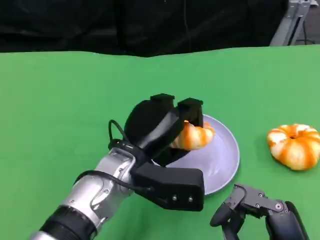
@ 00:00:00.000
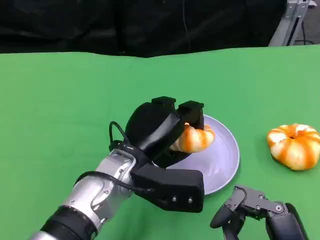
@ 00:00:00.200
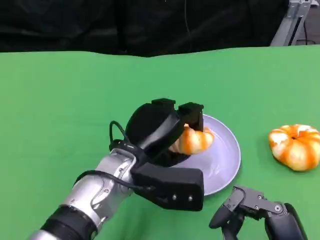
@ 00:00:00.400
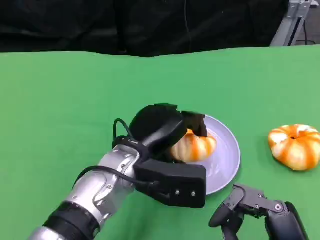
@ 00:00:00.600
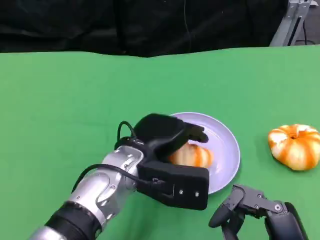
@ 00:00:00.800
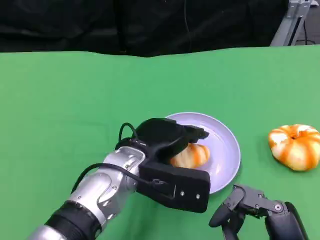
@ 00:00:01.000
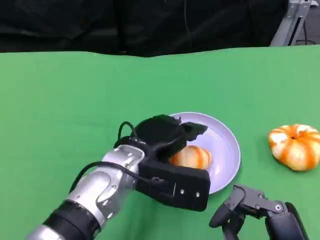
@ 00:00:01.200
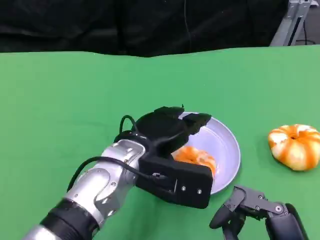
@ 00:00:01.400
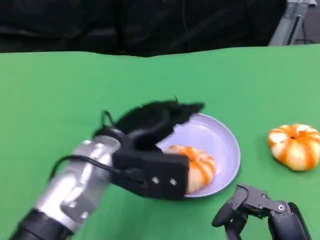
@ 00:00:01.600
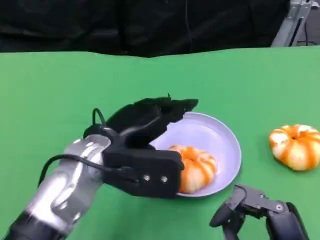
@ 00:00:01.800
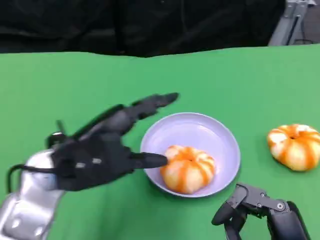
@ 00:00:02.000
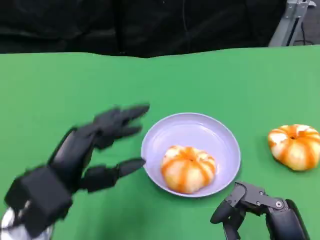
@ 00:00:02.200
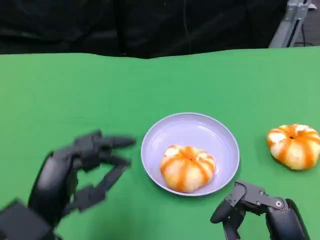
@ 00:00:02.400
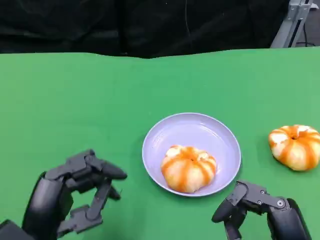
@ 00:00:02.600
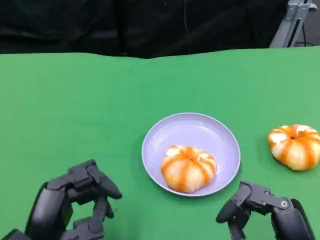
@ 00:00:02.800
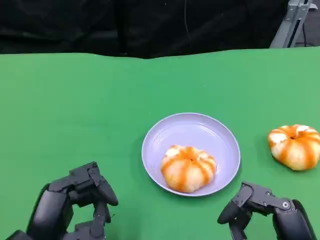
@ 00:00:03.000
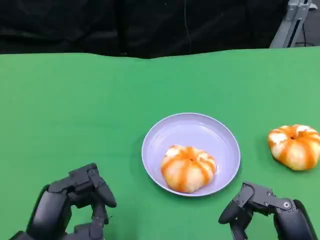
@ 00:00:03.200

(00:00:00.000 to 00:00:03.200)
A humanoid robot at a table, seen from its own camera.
Task of the whole recording: Grasp the bread from the table and place it into the plate.
00:00:00.000 - 00:00:01.600: The left hand changes place by some 5 cm.
00:00:01.600 - 00:00:03.200: The left hand goes roughly 15 cm backward, to the left and downward.

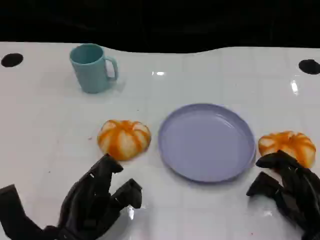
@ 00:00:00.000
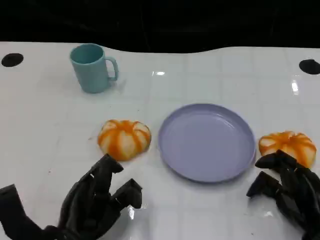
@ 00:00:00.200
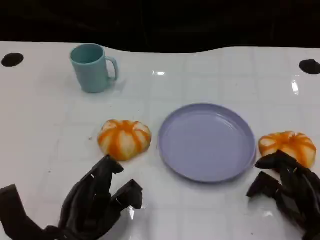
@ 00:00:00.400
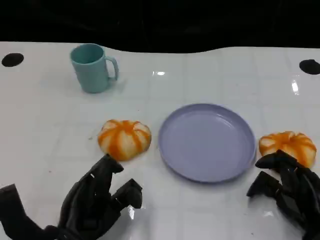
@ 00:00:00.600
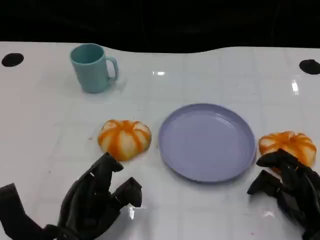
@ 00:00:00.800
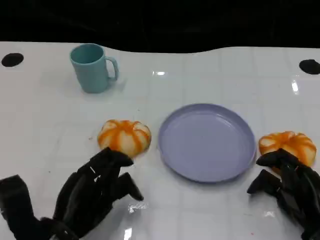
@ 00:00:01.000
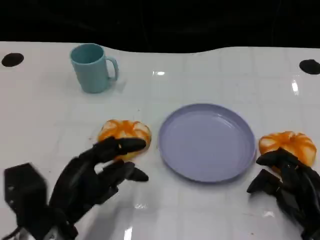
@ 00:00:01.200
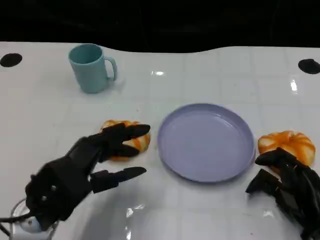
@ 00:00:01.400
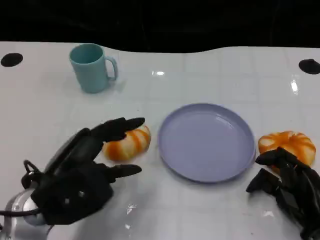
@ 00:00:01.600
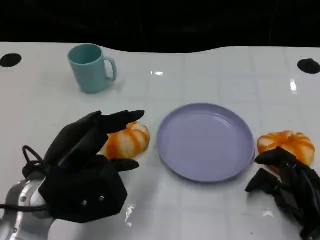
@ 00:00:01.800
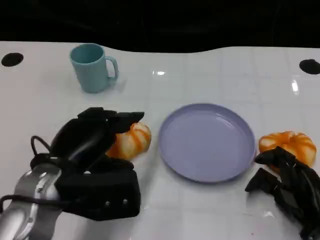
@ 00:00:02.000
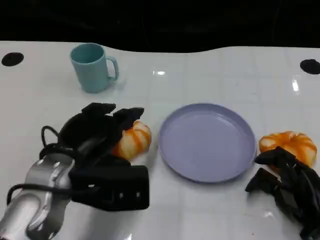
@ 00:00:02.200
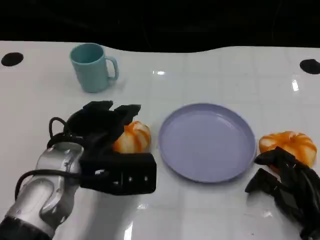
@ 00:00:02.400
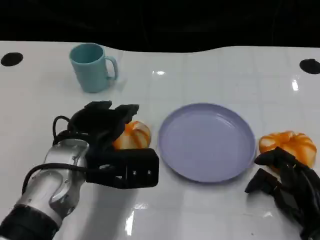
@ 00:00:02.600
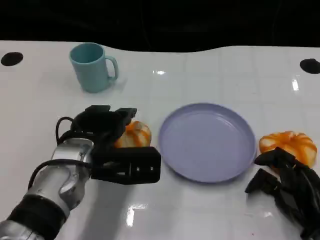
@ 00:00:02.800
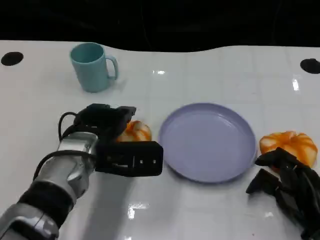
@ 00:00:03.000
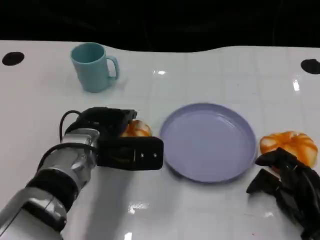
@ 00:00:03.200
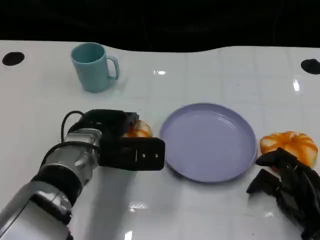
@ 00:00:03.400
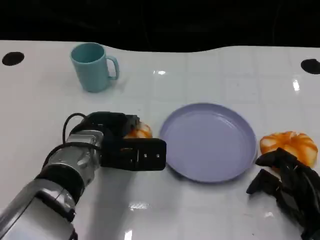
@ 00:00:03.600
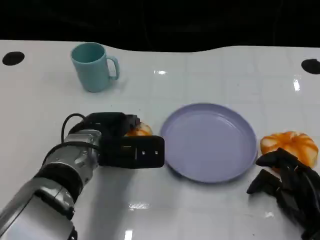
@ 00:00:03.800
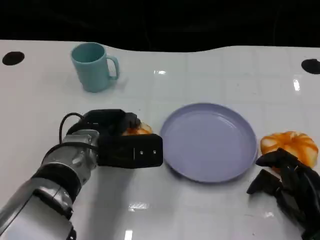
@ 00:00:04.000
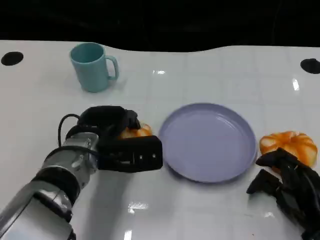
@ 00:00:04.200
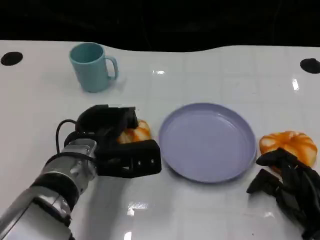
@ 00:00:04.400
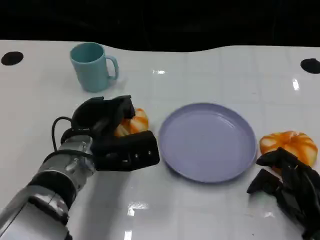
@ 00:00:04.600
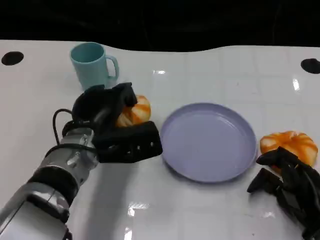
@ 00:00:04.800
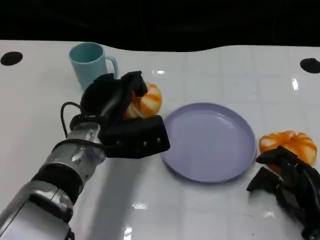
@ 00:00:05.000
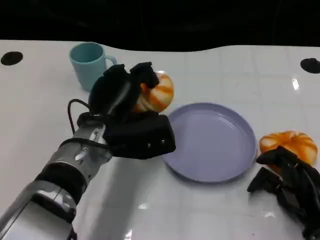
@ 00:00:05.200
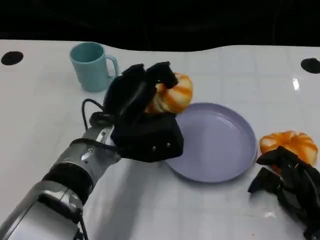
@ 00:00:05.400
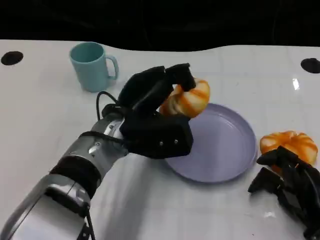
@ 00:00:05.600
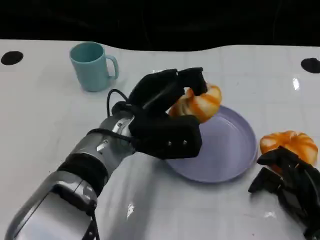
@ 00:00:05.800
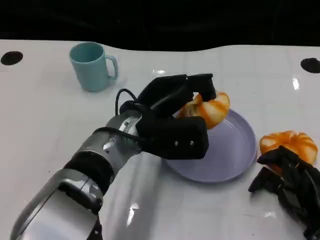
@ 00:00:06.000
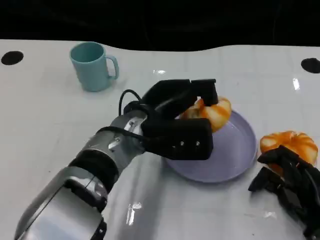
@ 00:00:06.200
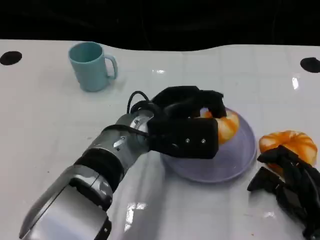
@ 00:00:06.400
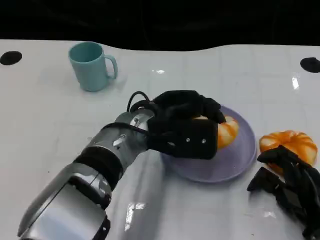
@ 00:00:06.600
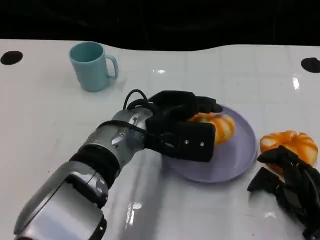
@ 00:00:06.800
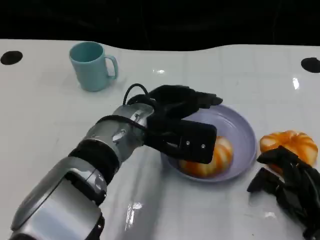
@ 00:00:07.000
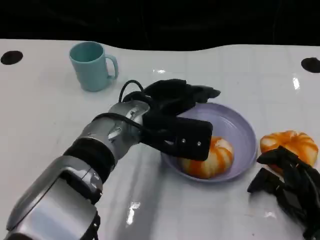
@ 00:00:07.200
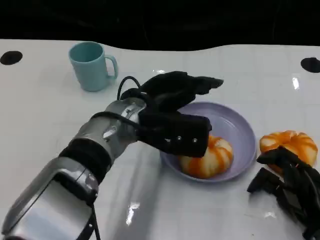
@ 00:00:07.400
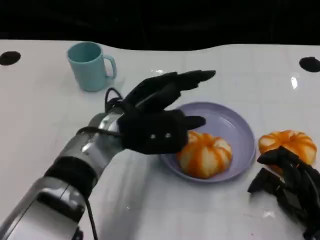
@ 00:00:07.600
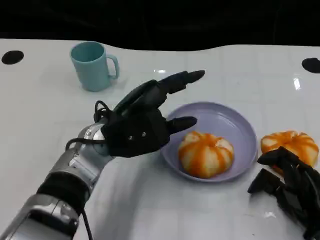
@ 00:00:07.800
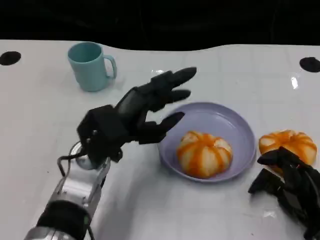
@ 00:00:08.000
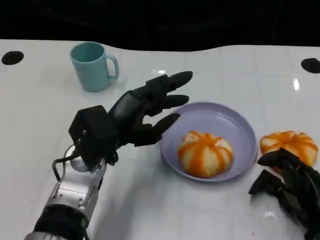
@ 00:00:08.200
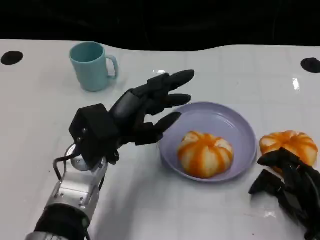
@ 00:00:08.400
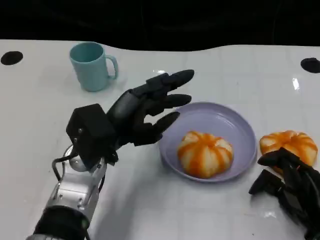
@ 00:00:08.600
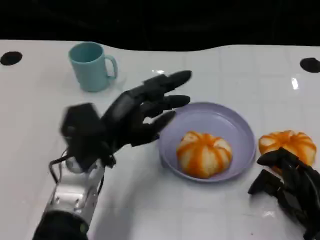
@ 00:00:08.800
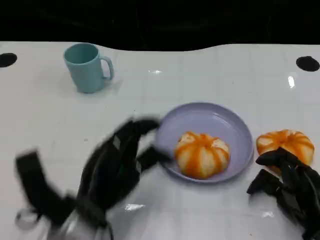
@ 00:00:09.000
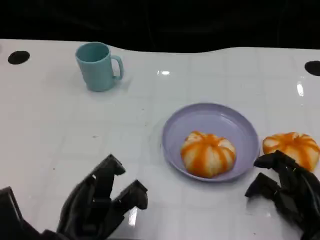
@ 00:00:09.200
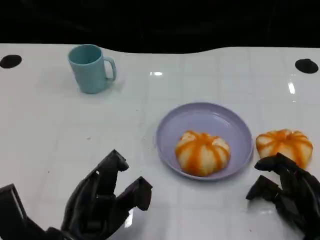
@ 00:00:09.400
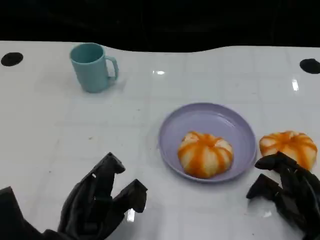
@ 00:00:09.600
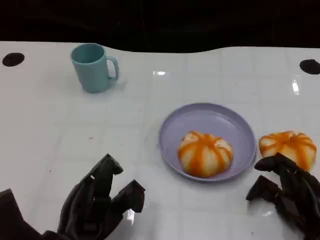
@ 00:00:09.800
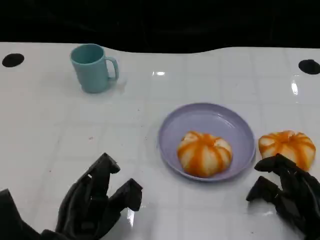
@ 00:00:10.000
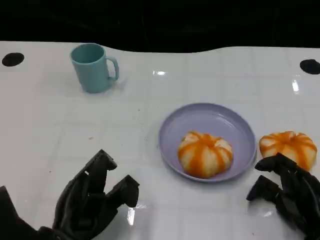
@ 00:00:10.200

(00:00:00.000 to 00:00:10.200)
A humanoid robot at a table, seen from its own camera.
Task of the whole recording: Grasp the bread from the table and place it into the plate.
00:00:00.000 - 00:00:01.400: The left hand goes approximately 5 cm upward.
00:00:01.400 - 00:00:03.000: The left hand heads forward and to the right, covering about 10 cm.
00:00:03.000 - 00:00:04.400: The hands make only small movements.
00:00:04.400 - 00:00:05.800: The left hand heads to the right and upward, covering approximately 10 cm.
00:00:07.200 - 00:00:08.800: The left hand heads to the left, covering about 10 cm.
00:00:08.800 - 00:00:10.200: The left hand travels backward and downward by some 10 cm.

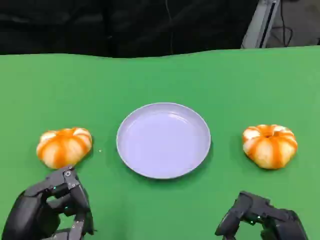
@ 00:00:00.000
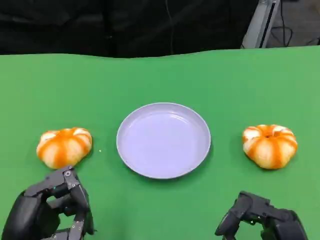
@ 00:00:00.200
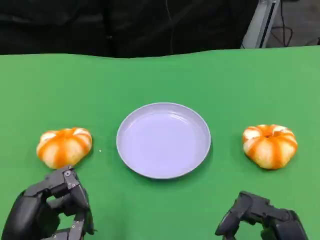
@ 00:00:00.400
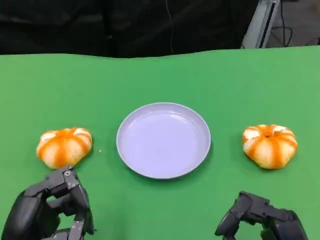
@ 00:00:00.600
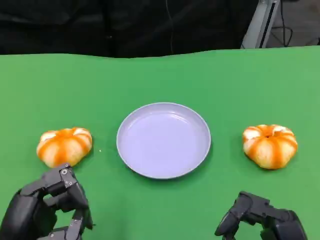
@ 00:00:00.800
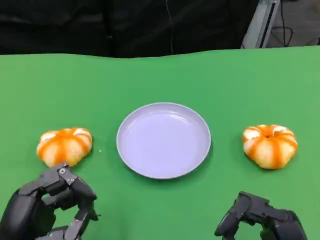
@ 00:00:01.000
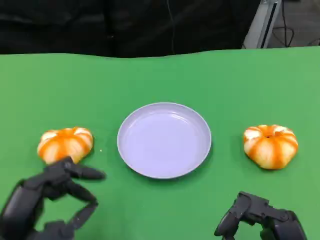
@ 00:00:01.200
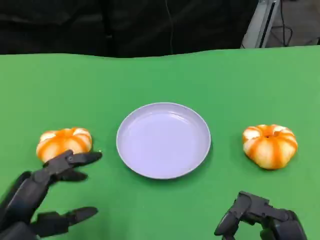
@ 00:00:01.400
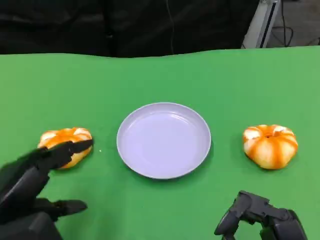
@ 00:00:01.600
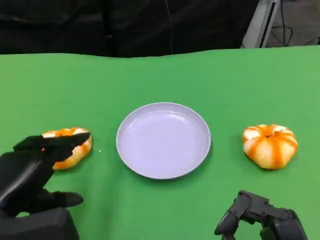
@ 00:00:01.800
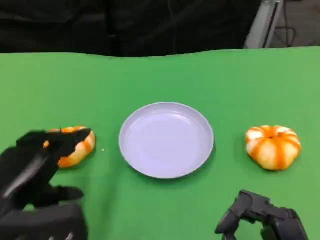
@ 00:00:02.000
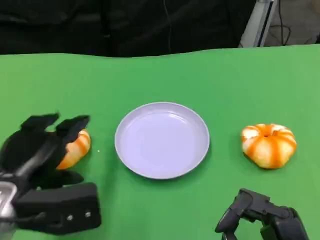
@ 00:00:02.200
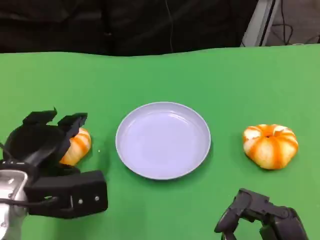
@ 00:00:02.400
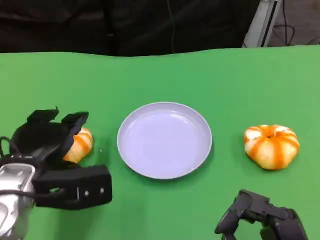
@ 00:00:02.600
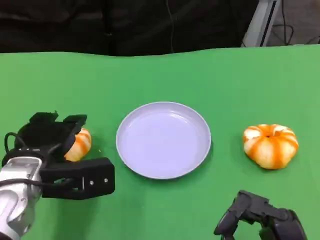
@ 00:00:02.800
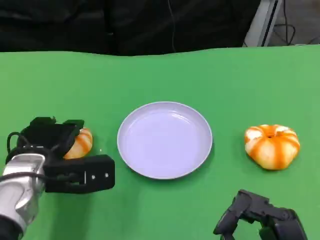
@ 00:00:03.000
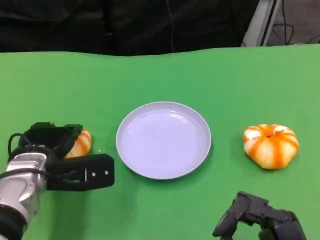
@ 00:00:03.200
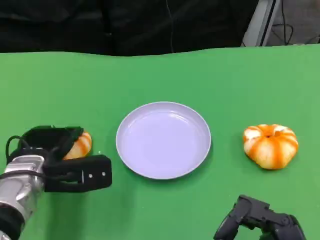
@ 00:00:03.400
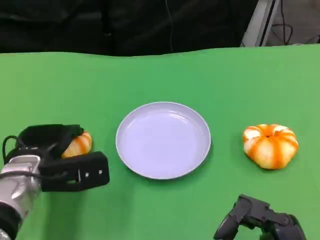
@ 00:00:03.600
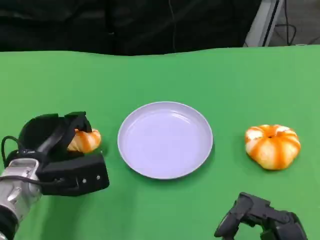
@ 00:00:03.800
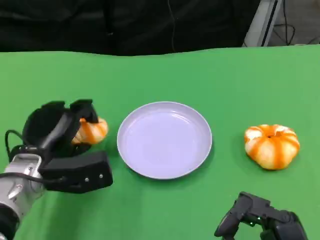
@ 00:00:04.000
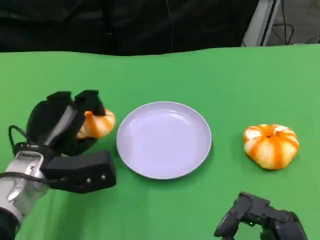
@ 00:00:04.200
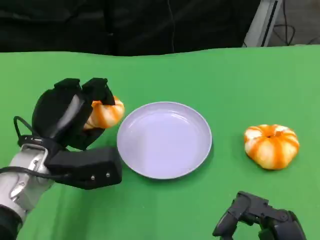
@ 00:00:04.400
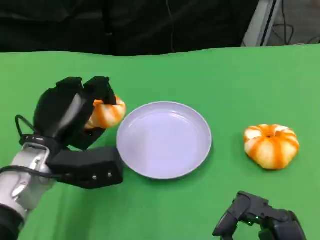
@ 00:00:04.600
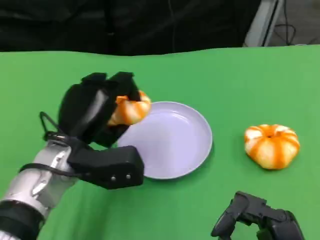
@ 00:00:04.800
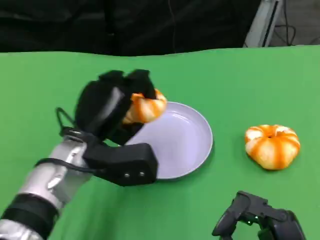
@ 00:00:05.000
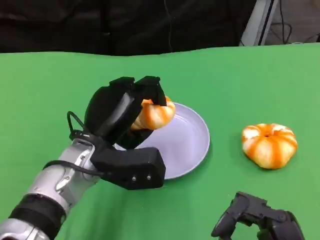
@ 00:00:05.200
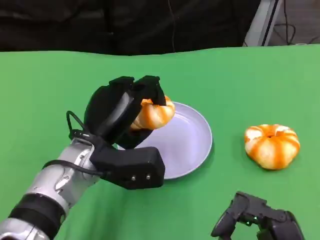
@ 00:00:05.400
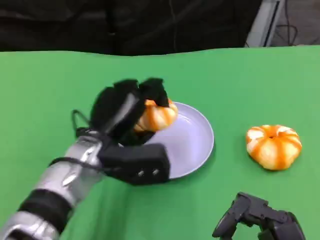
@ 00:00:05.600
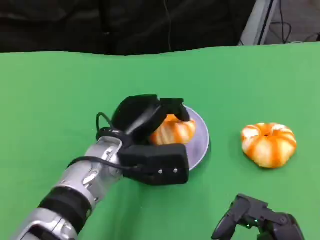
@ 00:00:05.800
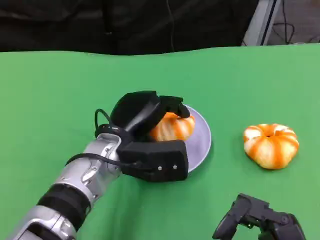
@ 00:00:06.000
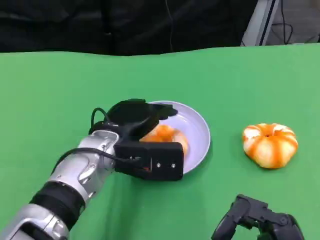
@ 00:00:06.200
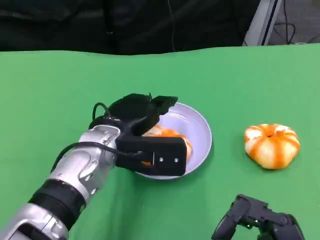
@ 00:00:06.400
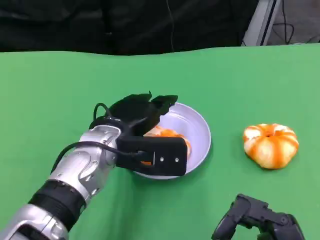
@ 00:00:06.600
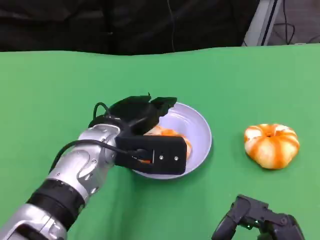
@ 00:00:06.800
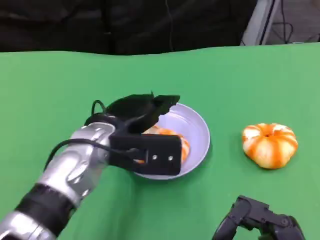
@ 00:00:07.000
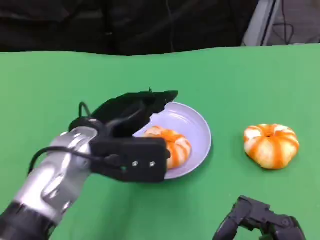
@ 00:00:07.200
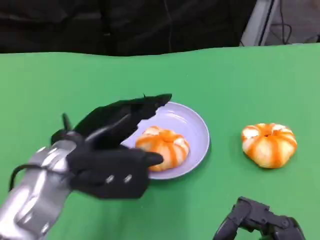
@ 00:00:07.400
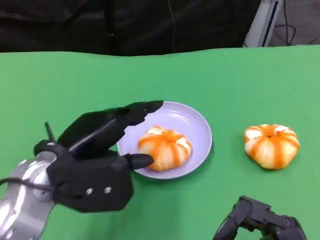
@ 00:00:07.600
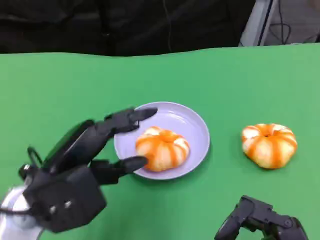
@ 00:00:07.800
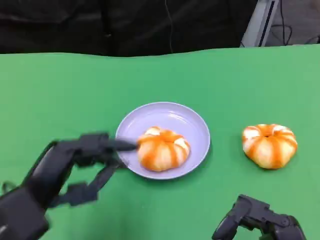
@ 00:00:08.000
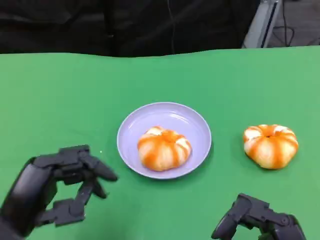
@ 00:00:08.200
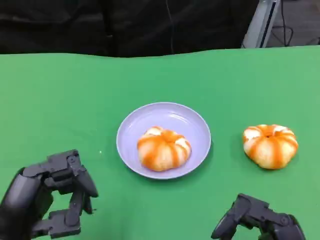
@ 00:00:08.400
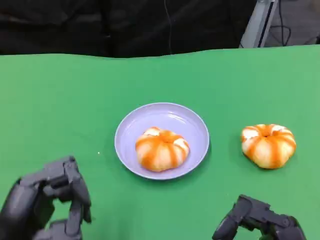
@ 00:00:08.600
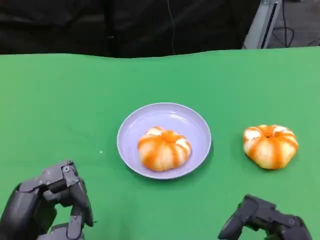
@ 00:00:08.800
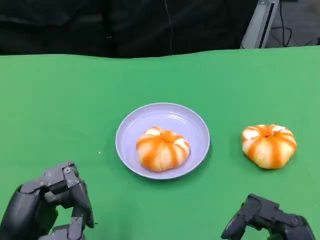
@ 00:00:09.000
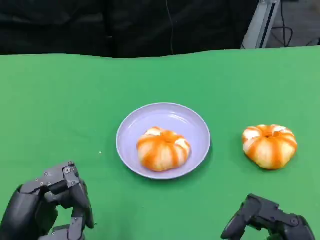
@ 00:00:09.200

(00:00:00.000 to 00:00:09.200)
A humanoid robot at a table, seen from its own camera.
Task of the whole recording: Grasp the bread from the table and place it into the plate.
00:00:00.000 - 00:00:01.600: The left hand shifts by approximately 5 cm.
00:00:01.600 - 00:00:03.000: The left hand is displaced forward by approximately 10 cm.
00:00:04.600 - 00:00:06.200: The left hand moves to the right, approximately 10 cm.
00:00:06.200 - 00:00:07.600: The left hand heads to the left and backward, covering about 10 cm.
00:00:07.600 - 00:00:09.200: The left hand heads backward and downward, covering some 10 cm.
